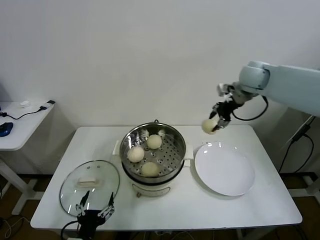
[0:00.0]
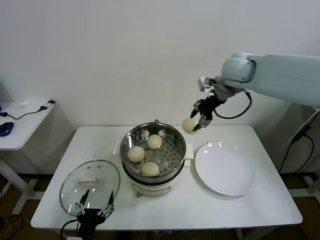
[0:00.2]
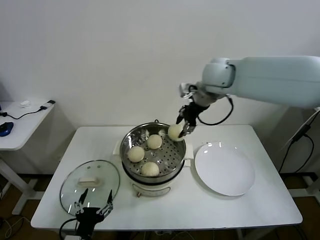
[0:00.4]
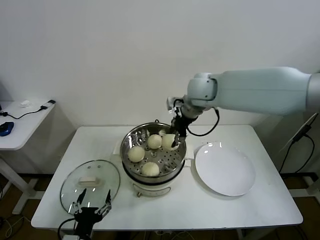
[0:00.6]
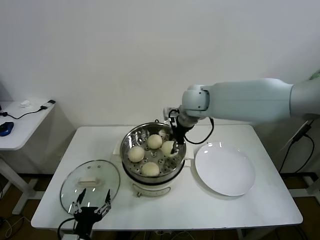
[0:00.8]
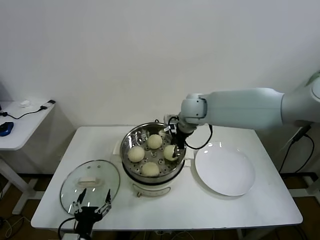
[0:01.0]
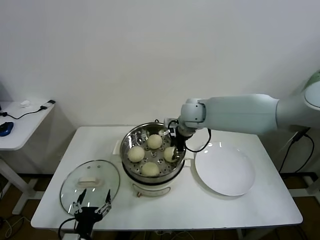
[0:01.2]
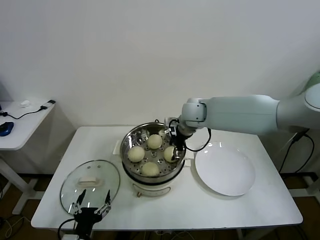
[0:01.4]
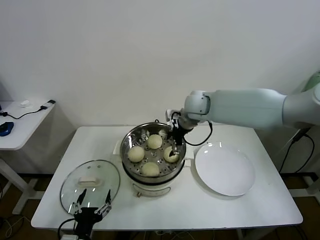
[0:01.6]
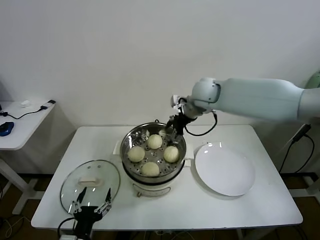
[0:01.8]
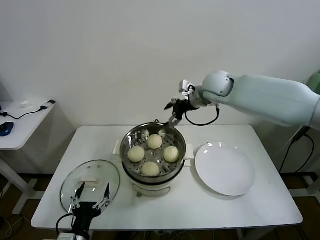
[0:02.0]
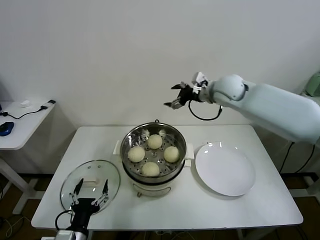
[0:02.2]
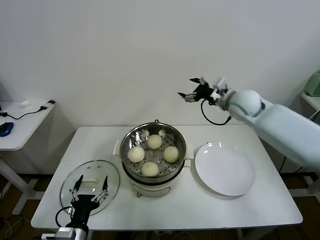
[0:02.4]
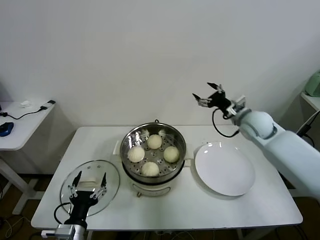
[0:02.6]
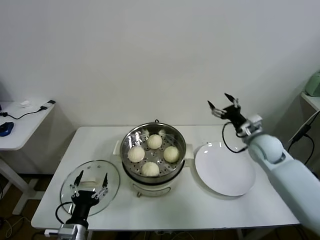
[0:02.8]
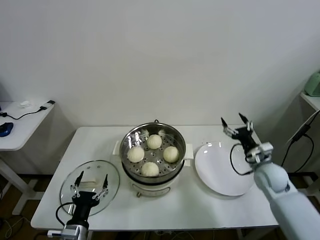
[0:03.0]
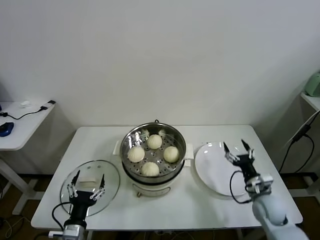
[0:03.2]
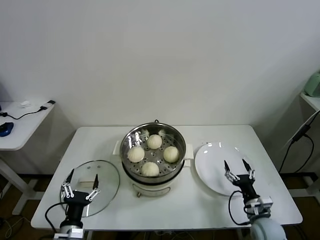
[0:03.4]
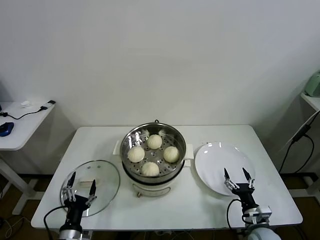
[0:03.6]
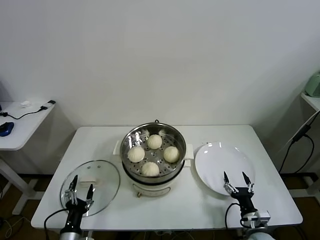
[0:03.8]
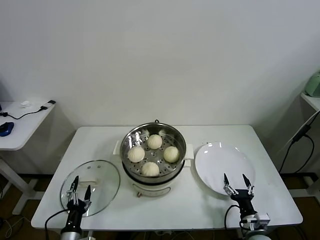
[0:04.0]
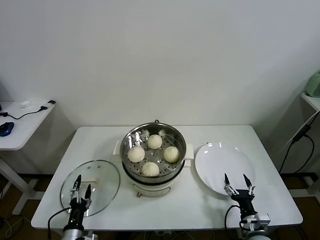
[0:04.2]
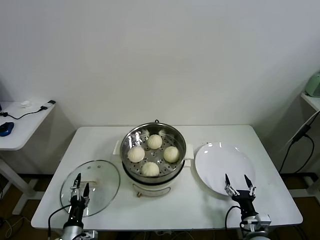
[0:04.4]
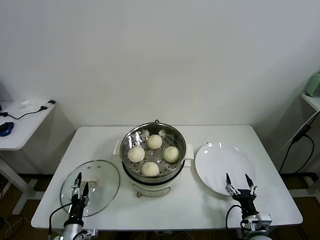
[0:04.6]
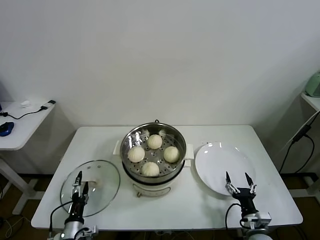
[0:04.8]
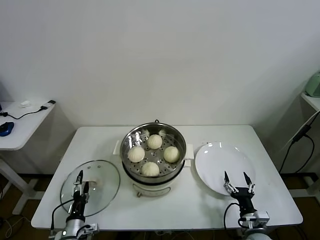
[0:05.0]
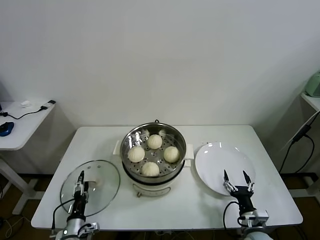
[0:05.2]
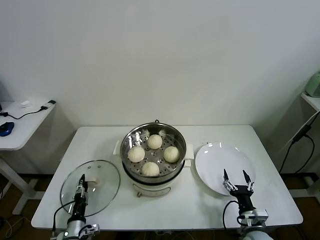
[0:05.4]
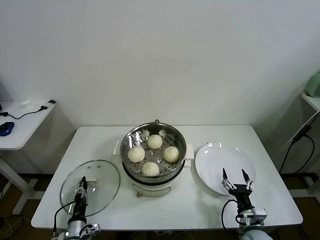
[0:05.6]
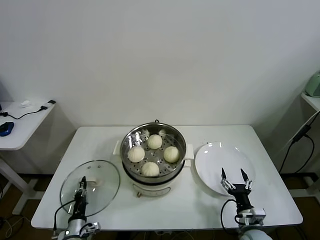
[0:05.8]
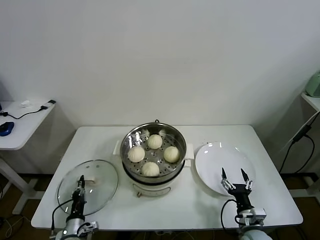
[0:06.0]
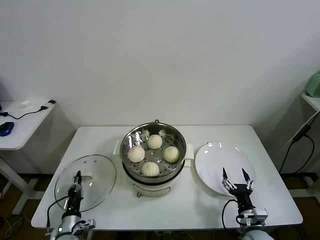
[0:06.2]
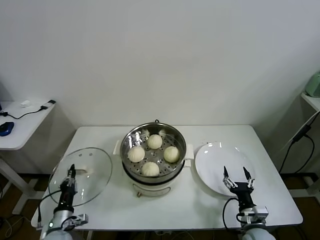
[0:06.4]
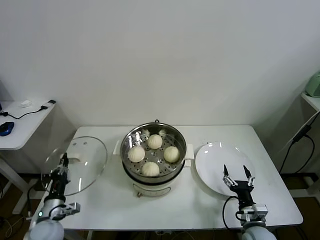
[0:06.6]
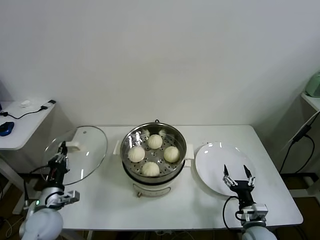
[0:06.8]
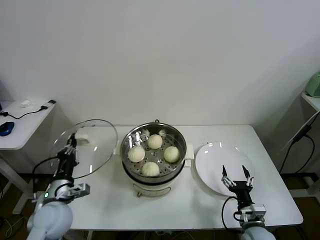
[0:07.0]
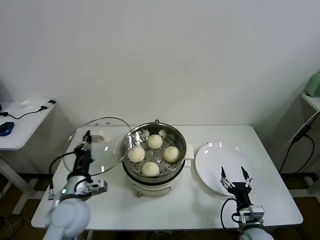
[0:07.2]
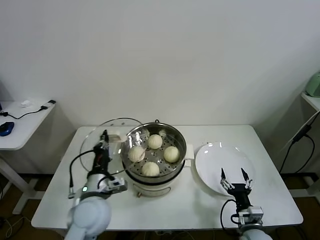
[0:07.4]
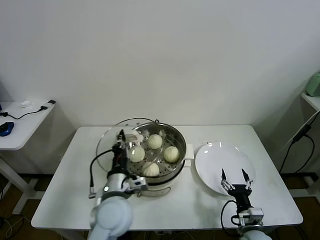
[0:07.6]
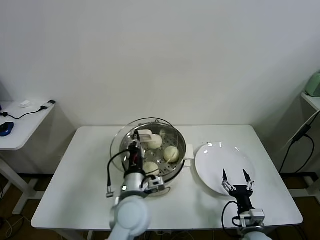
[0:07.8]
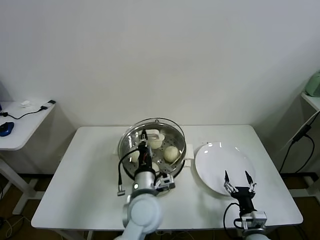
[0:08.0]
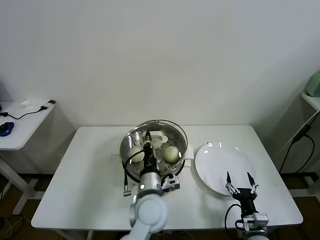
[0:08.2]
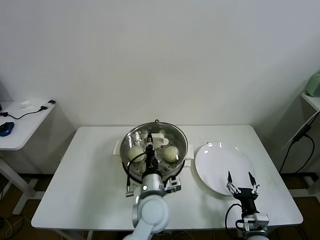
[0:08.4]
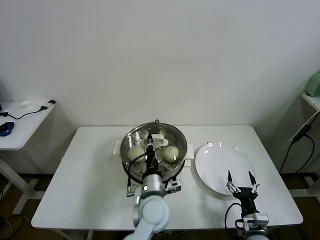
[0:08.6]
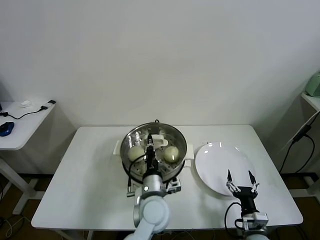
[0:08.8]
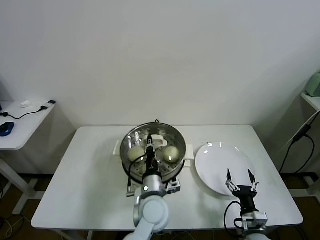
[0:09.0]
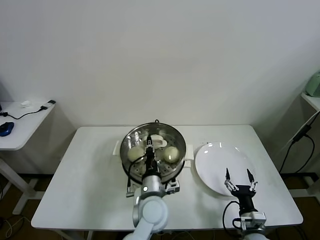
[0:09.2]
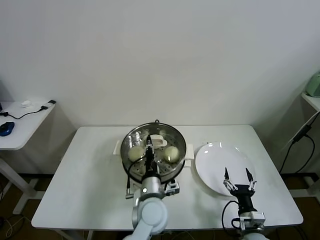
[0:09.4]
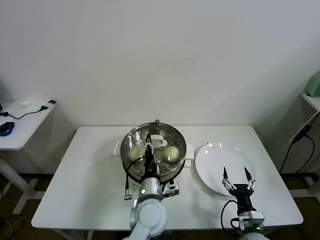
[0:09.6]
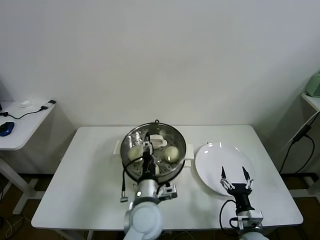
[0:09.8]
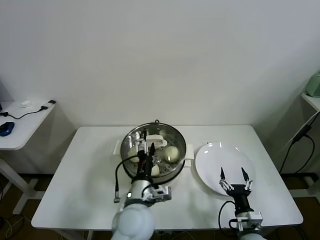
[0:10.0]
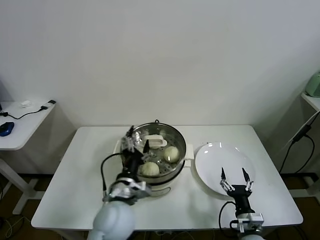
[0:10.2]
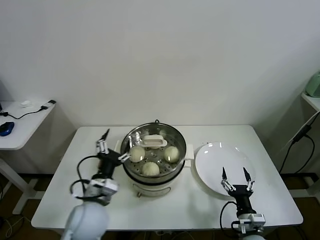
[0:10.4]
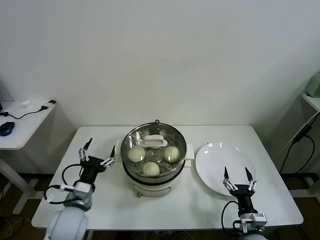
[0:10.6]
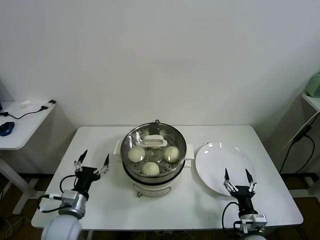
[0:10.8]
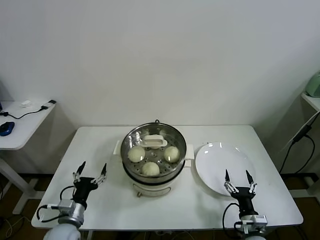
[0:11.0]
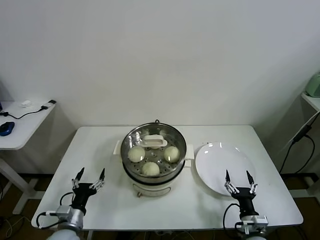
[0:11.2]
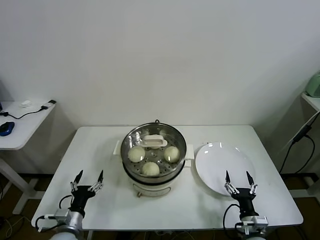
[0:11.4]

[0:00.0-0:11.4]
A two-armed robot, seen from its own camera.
Task of the whole recording: take steamed baozi put them in steamer.
Step, 0:00.0 to 0:01.6: Place the baozi on the steamer with right gripper.
Step, 0:01.8 to 0:05.8: Grasp the pot lid with left gripper.
Step, 0:06.0 to 0:09.4: Place the pot lid on the steamer with left gripper.
0:00.0 to 0:01.4: The right gripper goes some 20 cm to the left and downward, and opens its fingers.
0:01.4 to 0:02.8: The right gripper travels to the right by about 25 cm.
0:02.8 to 0:04.2: The right gripper is displaced backward and downward by approximately 35 cm; the left gripper shifts roughly 10 cm downward.
0:04.2 to 0:05.6: The left gripper changes place by some 5 cm, and closes its fingers.
0:05.6 to 0:07.2: The left gripper goes approximately 25 cm upward, and closes up.
0:07.2 to 0:08.6: The left gripper travels to the right by some 25 cm.
0:08.6 to 0:10.0: The left gripper ends up some 5 cm from where it was, and opens its fingers.
0:10.0 to 0:11.4: The left gripper shifts about 30 cm to the left and downward.

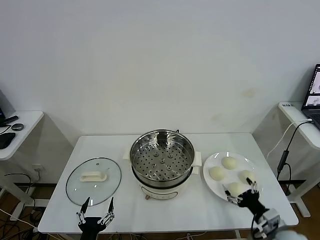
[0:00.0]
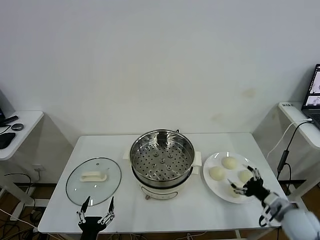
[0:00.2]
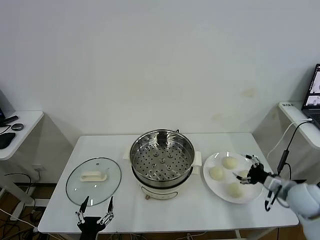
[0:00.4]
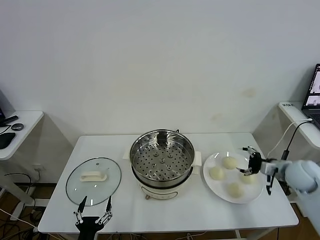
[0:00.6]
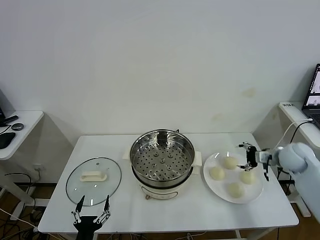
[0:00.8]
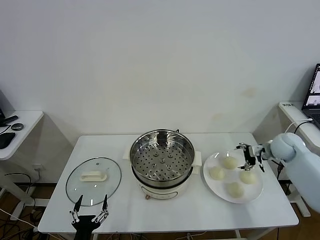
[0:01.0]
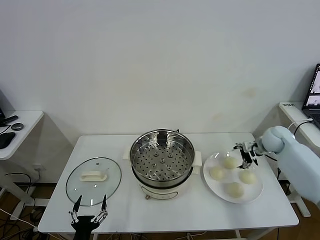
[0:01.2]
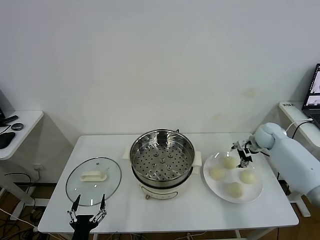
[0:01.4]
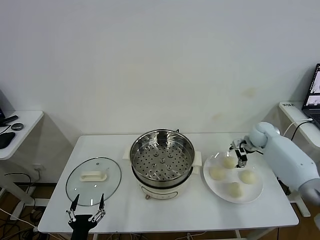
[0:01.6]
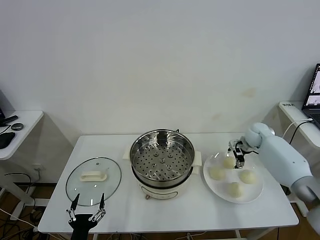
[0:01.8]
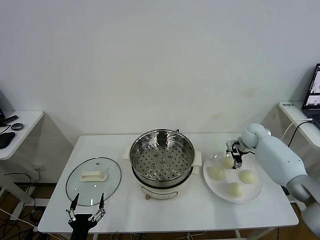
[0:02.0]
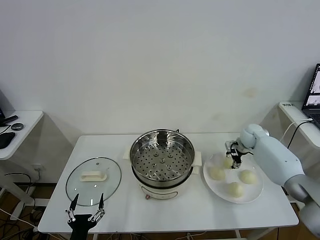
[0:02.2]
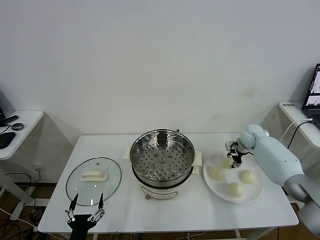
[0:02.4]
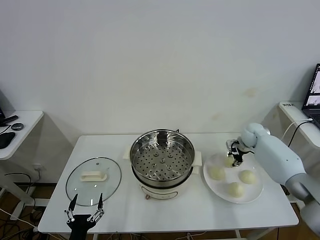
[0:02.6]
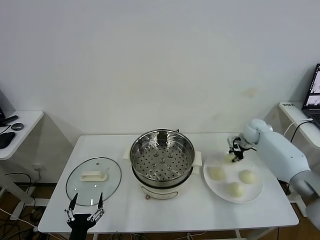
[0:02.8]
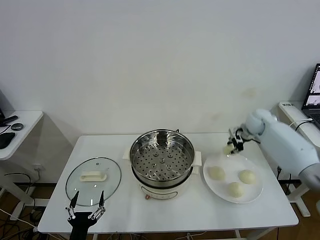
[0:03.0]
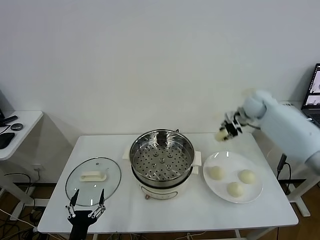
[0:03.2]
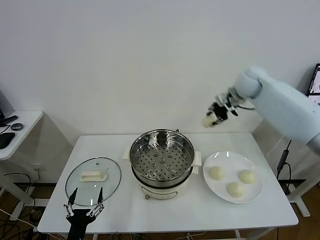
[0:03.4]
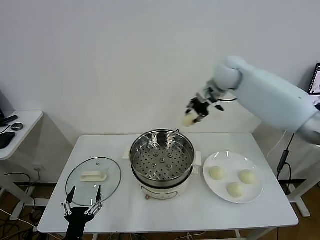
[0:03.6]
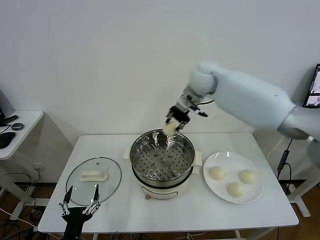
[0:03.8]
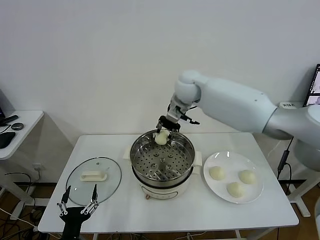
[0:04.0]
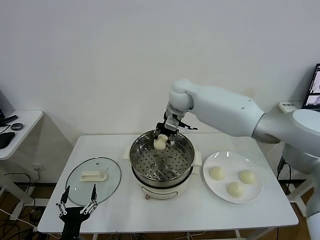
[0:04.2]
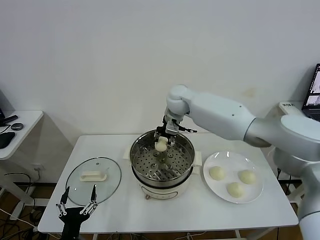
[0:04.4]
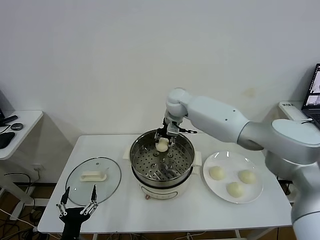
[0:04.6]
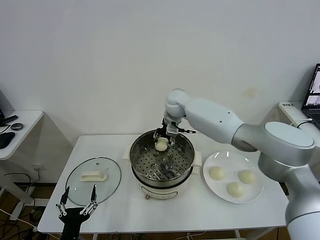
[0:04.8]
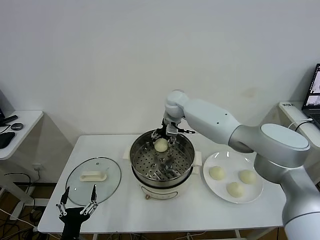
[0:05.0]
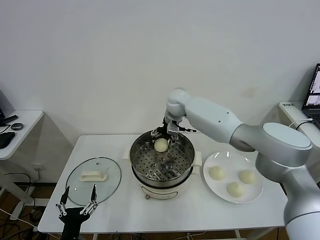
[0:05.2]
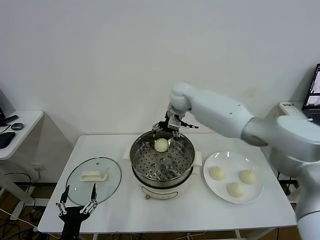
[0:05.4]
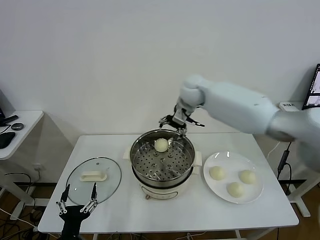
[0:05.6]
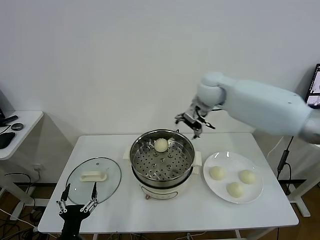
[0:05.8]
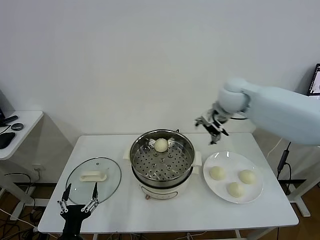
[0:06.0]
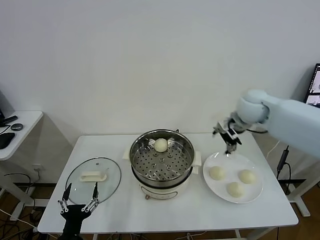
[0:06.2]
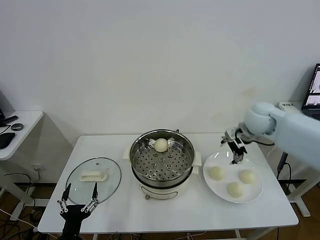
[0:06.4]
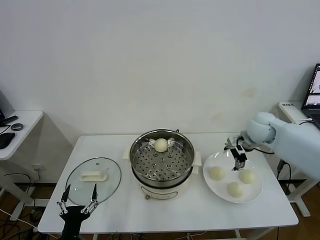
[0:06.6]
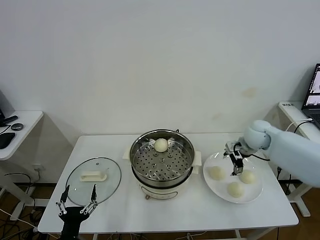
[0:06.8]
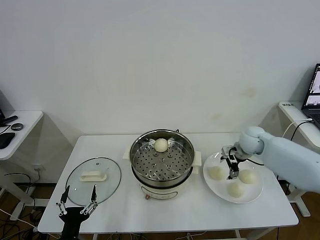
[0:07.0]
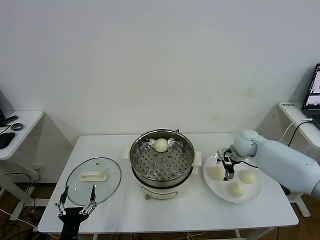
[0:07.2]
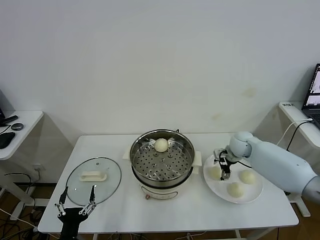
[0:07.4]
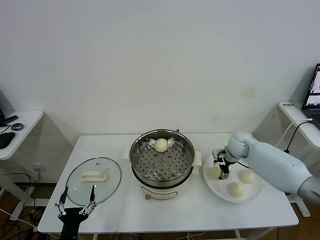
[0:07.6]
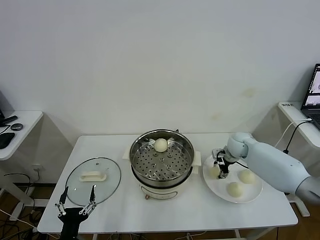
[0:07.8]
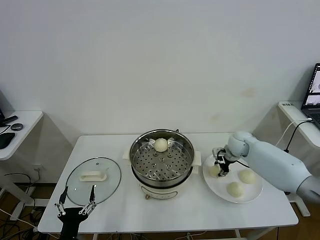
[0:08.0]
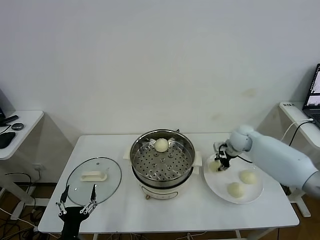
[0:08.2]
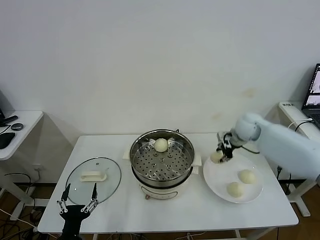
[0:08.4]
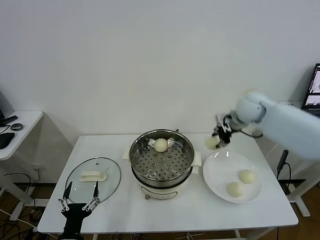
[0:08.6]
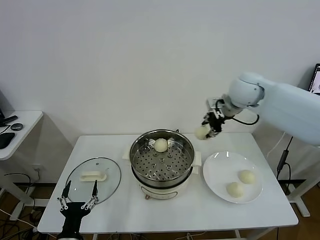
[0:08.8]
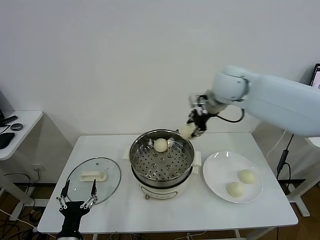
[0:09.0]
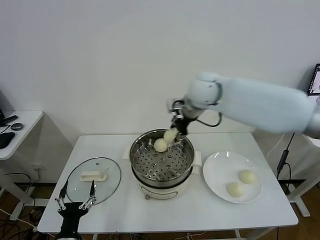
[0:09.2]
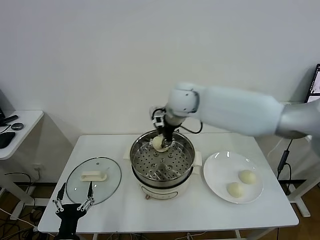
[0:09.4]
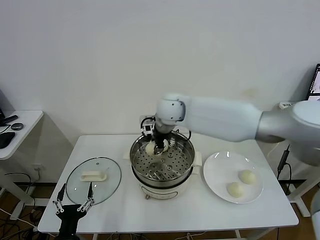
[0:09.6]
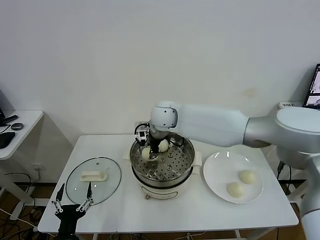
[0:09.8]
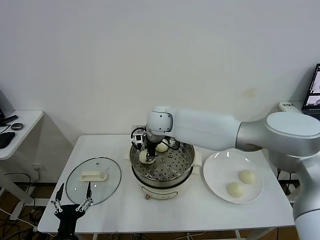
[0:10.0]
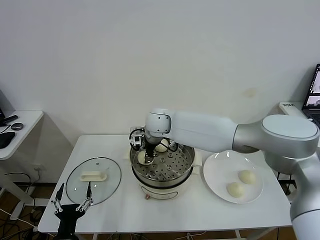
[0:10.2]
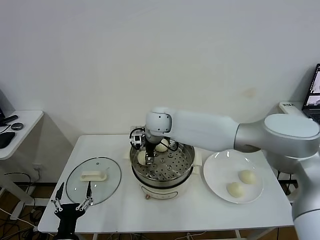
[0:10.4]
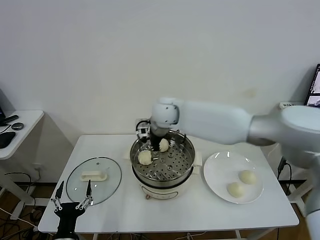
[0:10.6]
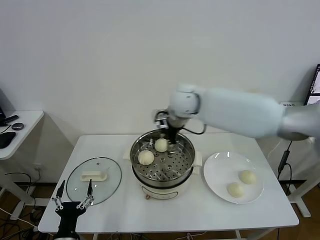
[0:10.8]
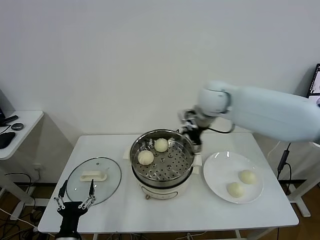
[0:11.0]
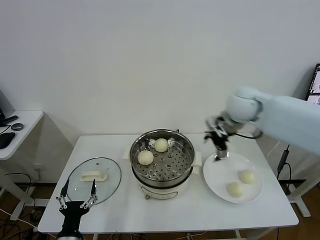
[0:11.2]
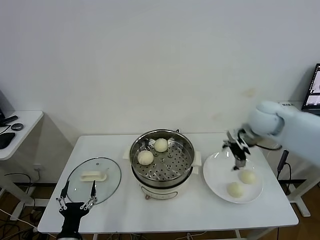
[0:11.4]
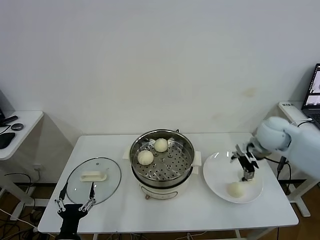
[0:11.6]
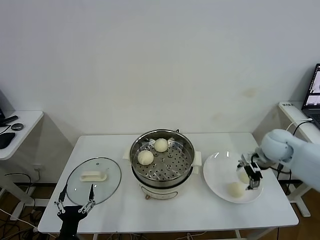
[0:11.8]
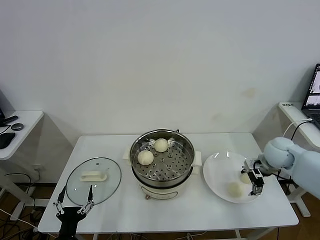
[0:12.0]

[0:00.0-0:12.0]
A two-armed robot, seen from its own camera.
Task of the whole recording: take steamed baozi put them in steamer.
Step, 0:00.0 to 0:02.2: Grasp the baozi in the plate with right gripper.
Step, 0:02.4 to 0:05.2: Place the baozi on the steamer with right gripper.
Step, 0:05.4 to 0:07.6: Grasp the baozi in the plate with right gripper.
Step, 0:08.0 to 0:10.4: Place the baozi on the steamer with right gripper.
0:01.6 to 0:03.0: The right gripper heads upward, covering some 5 cm, and closes up.
0:03.0 to 0:04.4: The right gripper goes roughly 30 cm to the left.
0:04.4 to 0:06.0: The right gripper heads to the right, covering some 15 cm, and opens.
0:06.0 to 0:07.6: The right gripper moves downward, roughly 25 cm.
0:07.6 to 0:09.0: The right gripper travels upward and to the left by roughly 30 cm, and closes its fingers.
0:09.0 to 0:10.4: The right gripper travels to the left and downward by about 25 cm, and opens.
0:10.4 to 0:12.0: The right gripper is displaced to the right by about 40 cm.
